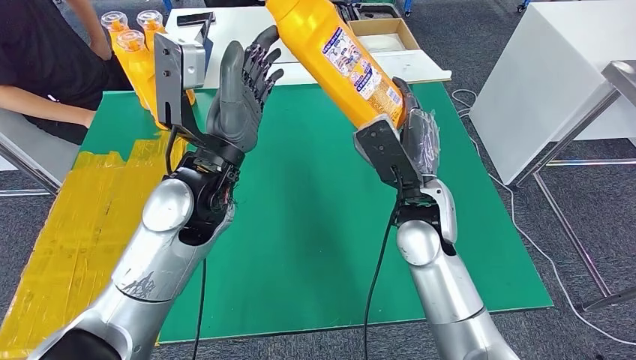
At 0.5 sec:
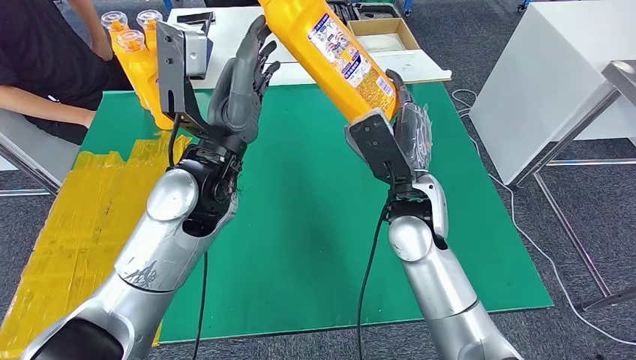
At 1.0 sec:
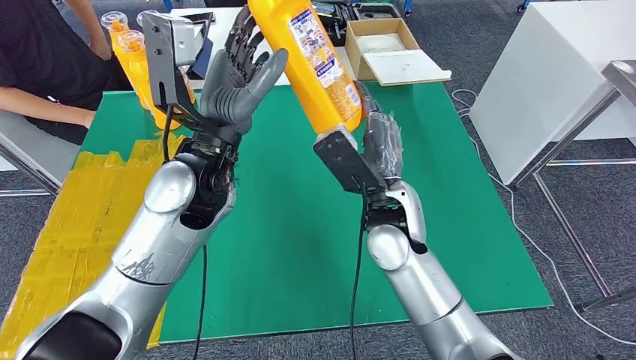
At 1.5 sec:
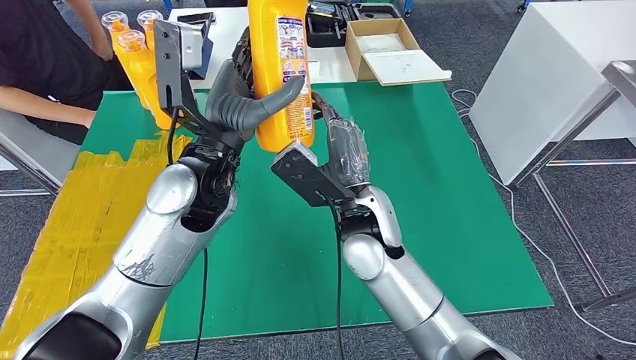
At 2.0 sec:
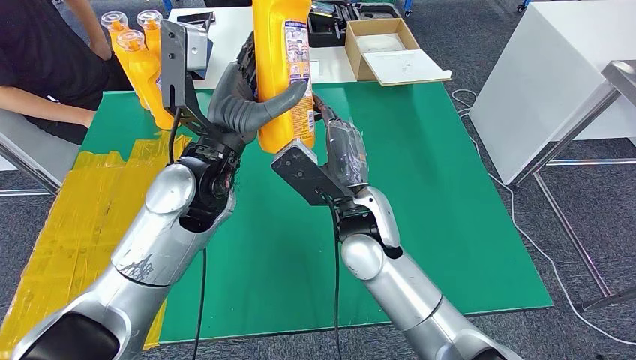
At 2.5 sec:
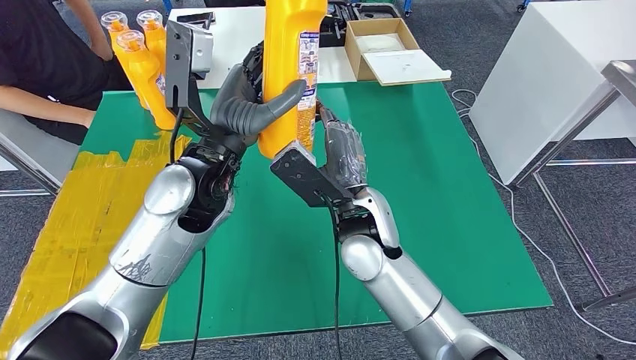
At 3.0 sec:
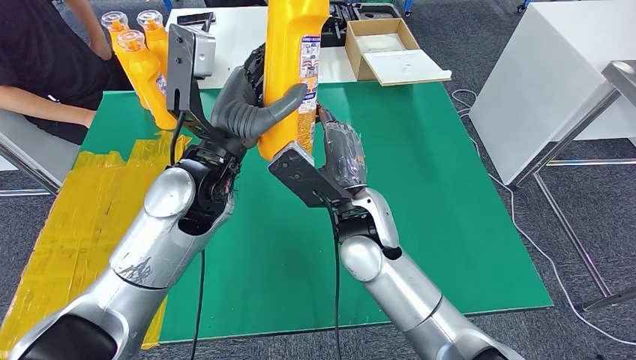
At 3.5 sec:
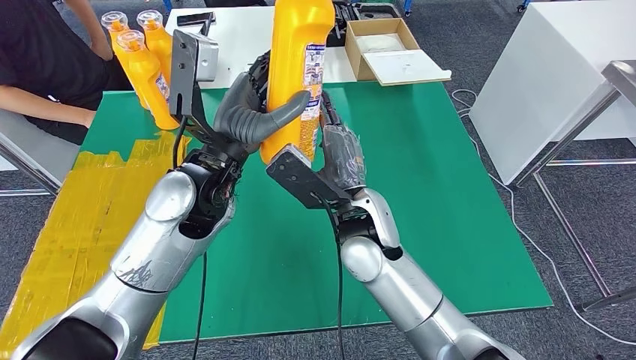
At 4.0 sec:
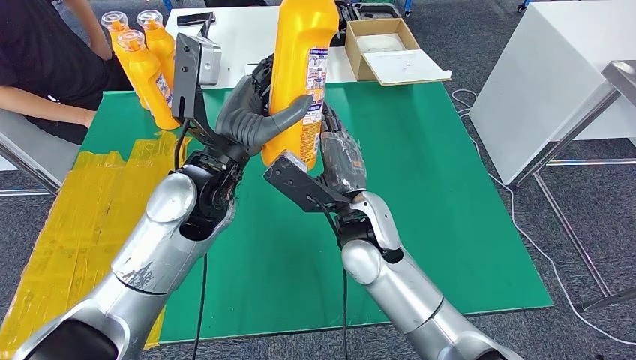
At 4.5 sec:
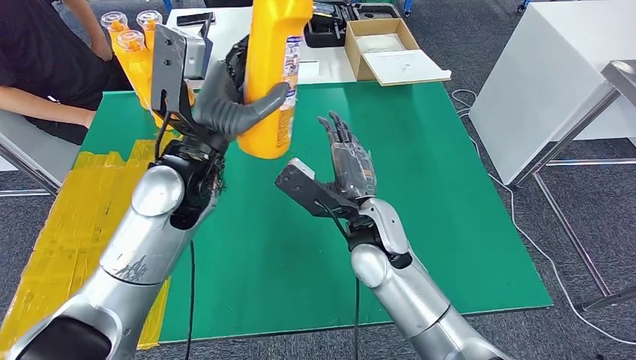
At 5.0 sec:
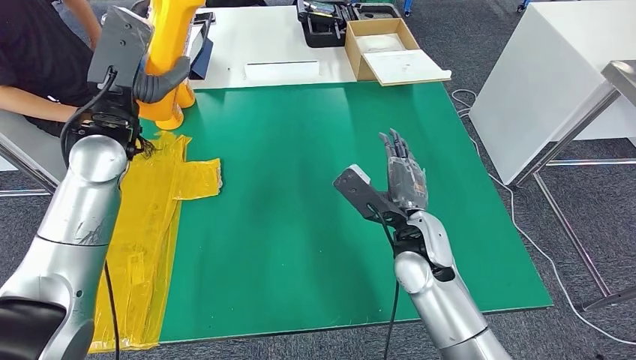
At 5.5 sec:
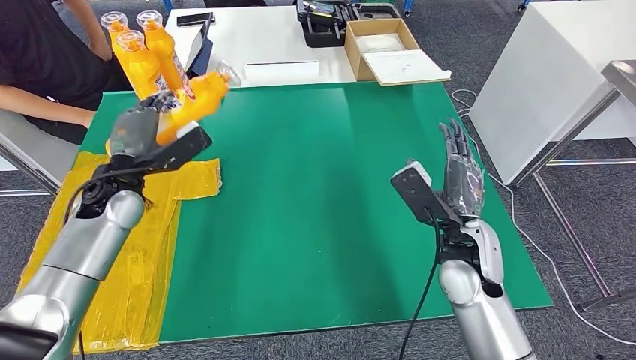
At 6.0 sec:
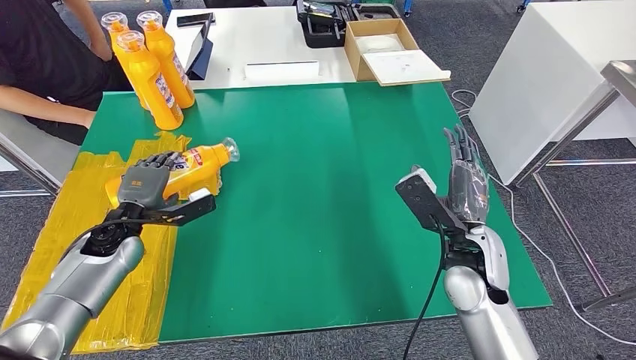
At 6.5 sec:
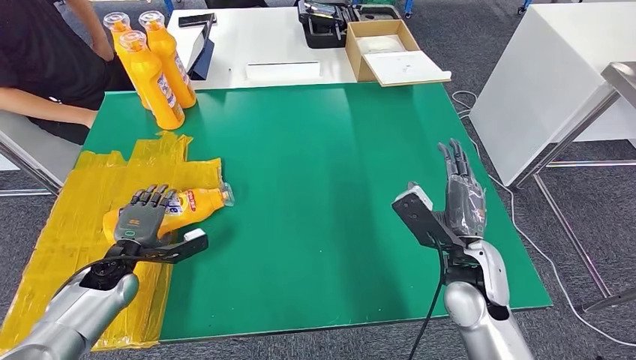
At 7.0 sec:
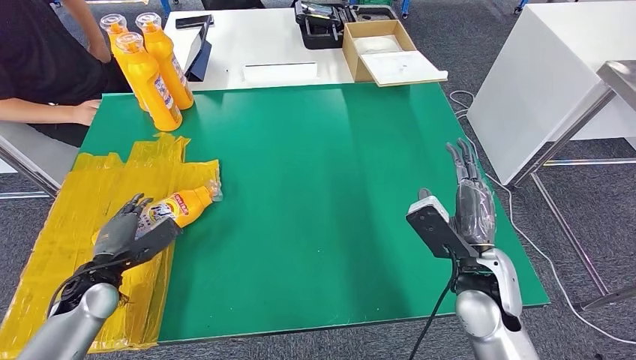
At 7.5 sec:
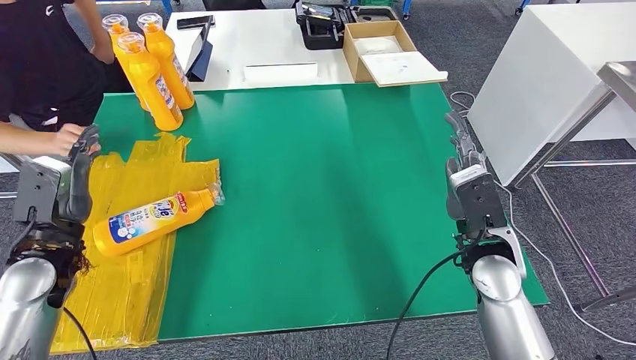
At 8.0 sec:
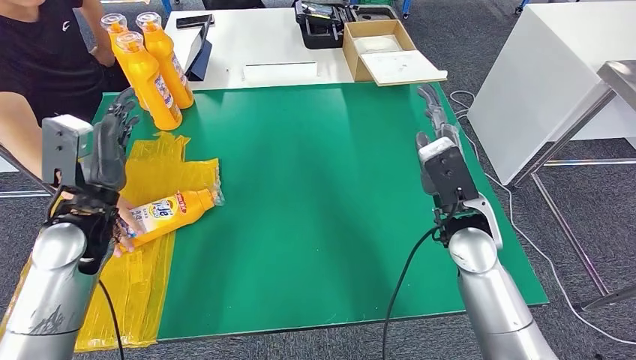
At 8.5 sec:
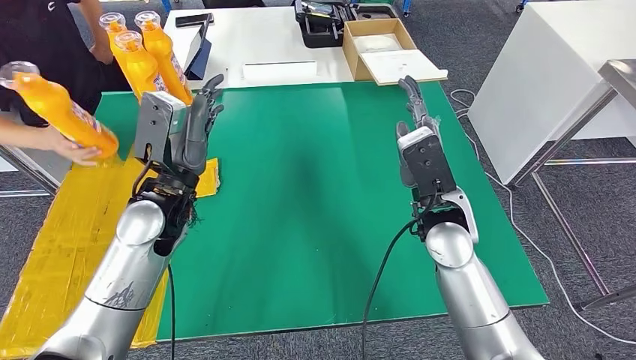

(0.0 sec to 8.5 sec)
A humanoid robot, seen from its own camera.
Step, 0.0 sec - 8.5 sec: Flip the bottle to face forward.
2.0 sec - 4.0 sec: The hands make only small movements.
